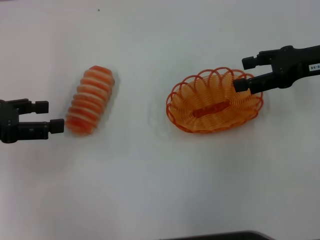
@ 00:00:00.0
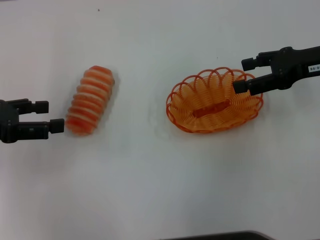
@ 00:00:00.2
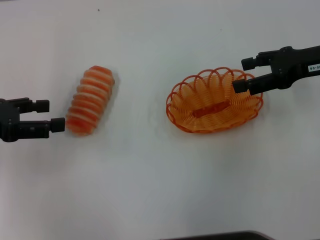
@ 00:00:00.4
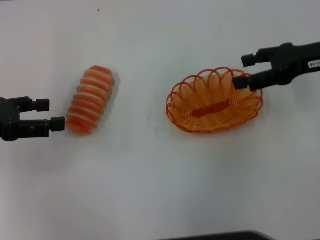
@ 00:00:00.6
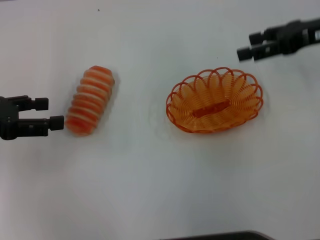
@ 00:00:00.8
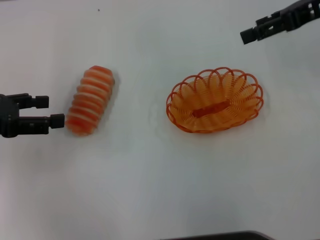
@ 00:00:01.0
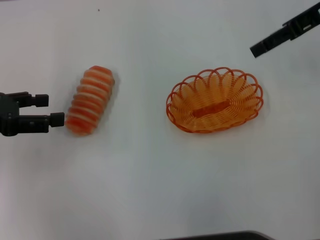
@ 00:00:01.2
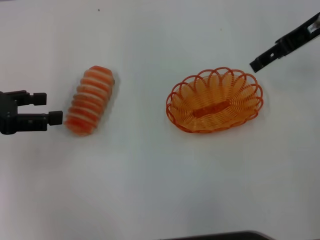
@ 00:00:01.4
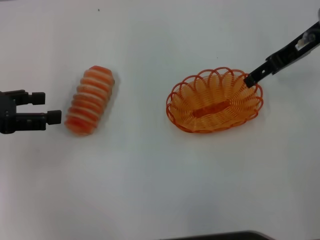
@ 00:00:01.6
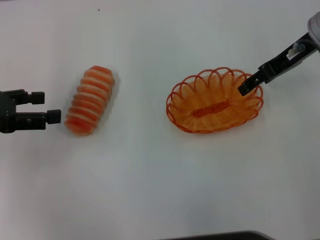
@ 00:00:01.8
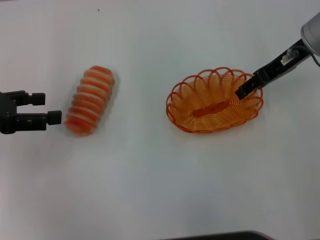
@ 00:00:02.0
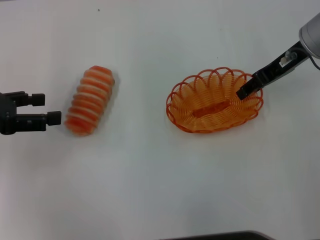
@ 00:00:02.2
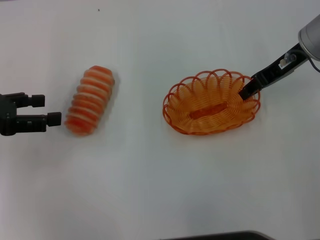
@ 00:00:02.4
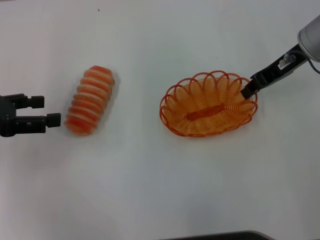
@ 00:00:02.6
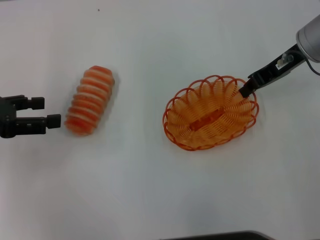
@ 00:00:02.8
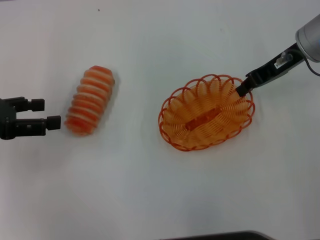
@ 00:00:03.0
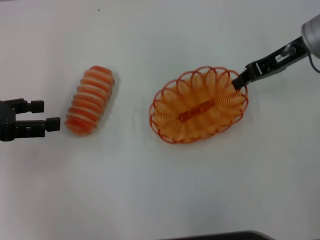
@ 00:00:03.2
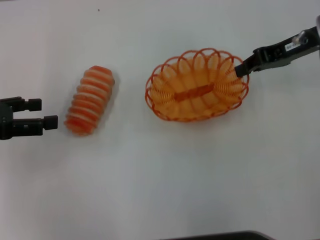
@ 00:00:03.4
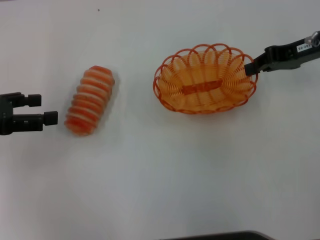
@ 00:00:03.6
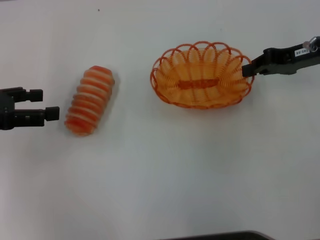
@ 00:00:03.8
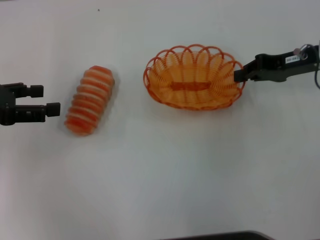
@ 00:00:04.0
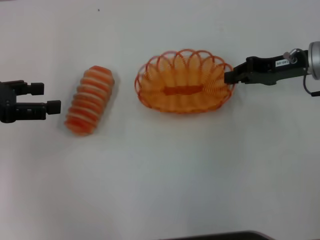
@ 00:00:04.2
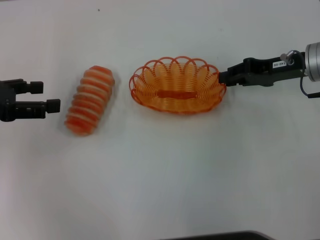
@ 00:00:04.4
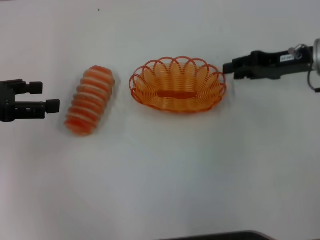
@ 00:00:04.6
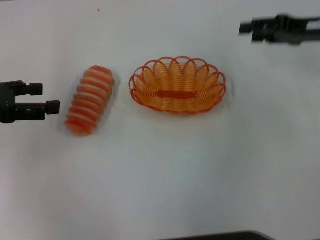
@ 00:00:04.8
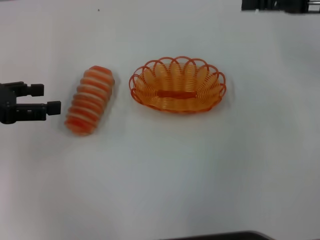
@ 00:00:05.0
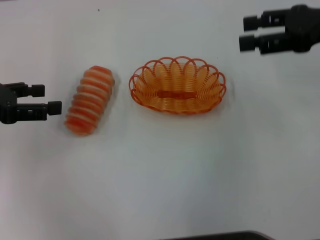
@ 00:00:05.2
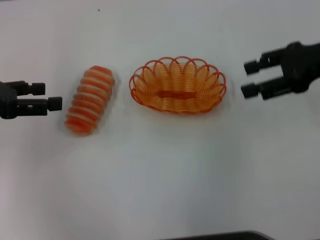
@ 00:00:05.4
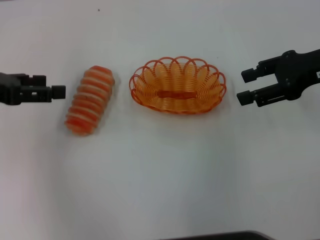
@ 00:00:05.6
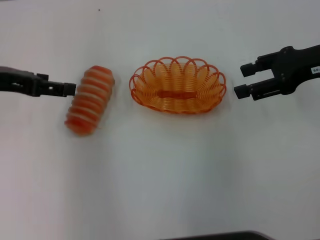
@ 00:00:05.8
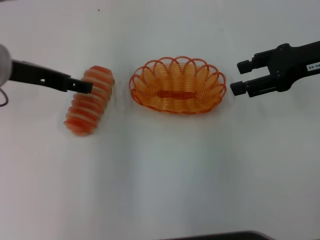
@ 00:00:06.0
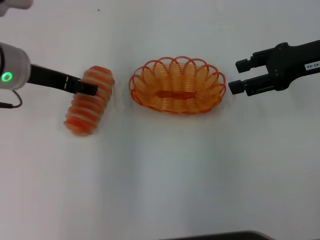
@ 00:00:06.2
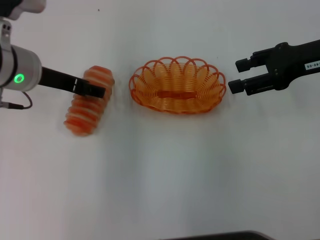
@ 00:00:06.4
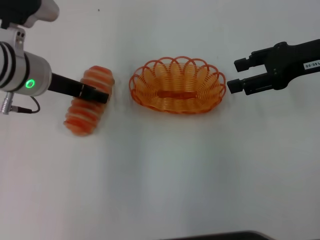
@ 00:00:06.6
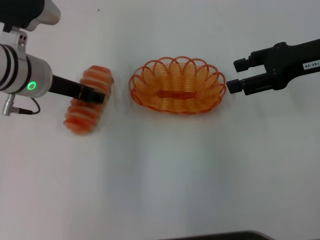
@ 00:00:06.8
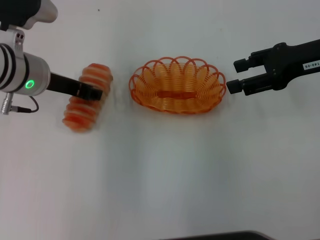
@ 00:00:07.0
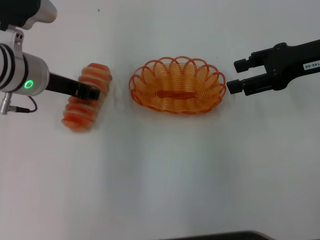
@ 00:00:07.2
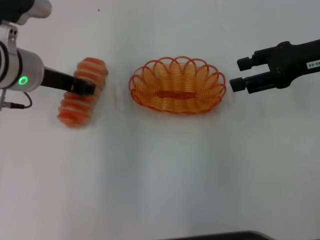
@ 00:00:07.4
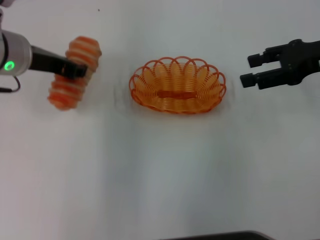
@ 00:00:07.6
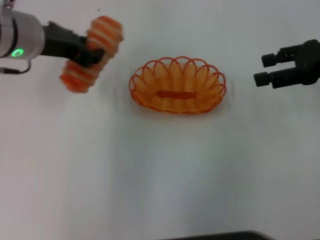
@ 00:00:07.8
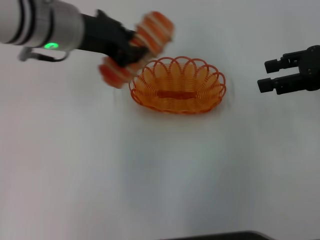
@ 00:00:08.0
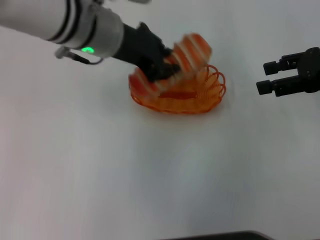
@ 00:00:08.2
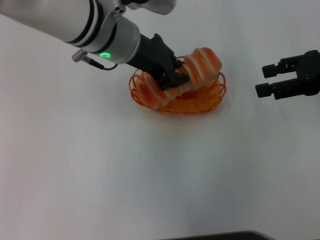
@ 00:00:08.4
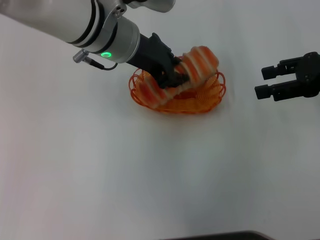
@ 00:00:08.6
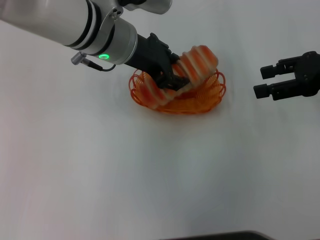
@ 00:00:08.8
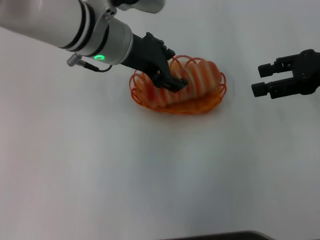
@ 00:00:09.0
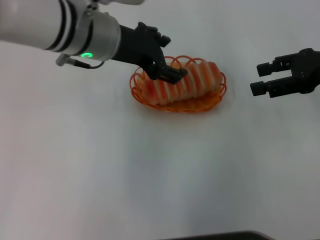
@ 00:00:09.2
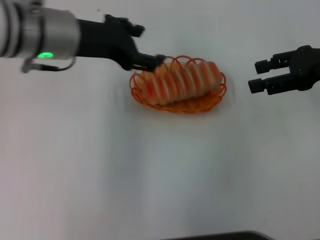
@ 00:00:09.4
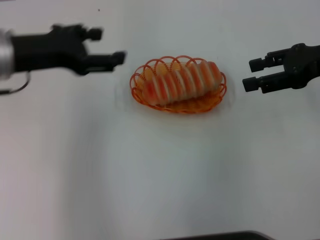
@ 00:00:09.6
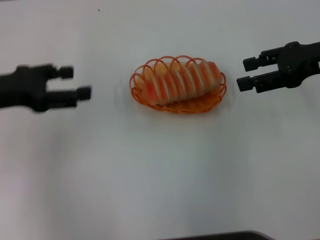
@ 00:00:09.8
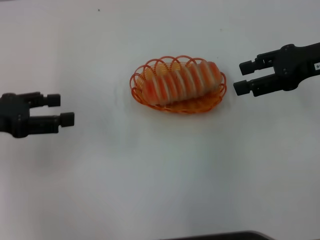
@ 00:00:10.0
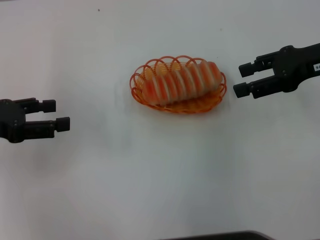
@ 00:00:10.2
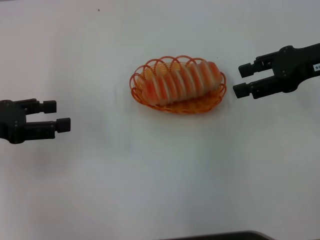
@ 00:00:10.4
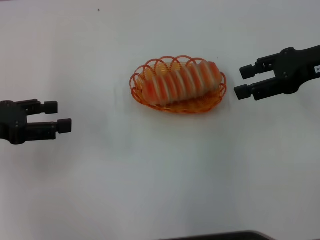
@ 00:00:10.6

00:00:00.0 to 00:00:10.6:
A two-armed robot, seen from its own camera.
Step, 00:00:00.0 to 00:00:03.0: Pick up the basket with the right gripper.
Step, 00:00:03.4 to 00:00:04.6: Place the basket in the center of view with the right gripper.
Step, 00:00:05.0 to 00:00:07.4: Pick up the long bread with the left gripper.
Step, 00:00:07.6 to 00:00:09.0: Place the long bread into the basket with the left gripper.
00:00:00.0 to 00:00:01.6: The right gripper moves forward, roughly 5 cm.
00:00:01.6 to 00:00:03.0: The right gripper closes its fingers.
00:00:03.0 to 00:00:04.6: The right gripper shifts by about 5 cm.
00:00:04.6 to 00:00:06.0: The left gripper shifts some 10 cm to the right. The right gripper moves upward, roughly 5 cm, and opens up.
00:00:06.0 to 00:00:07.6: The left gripper closes.
00:00:07.6 to 00:00:09.0: The left gripper heads to the right, covering some 10 cm.
00:00:09.0 to 00:00:10.6: The left gripper travels to the left by about 25 cm, and opens.
